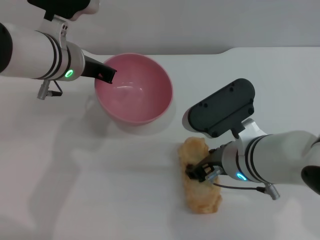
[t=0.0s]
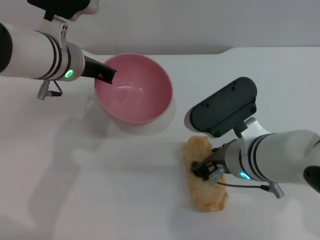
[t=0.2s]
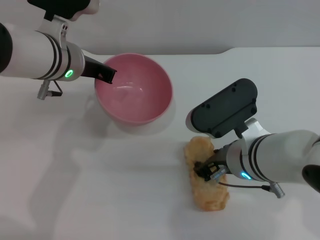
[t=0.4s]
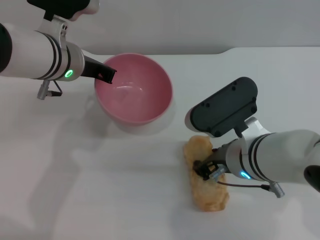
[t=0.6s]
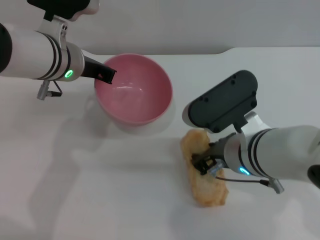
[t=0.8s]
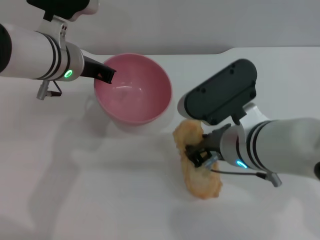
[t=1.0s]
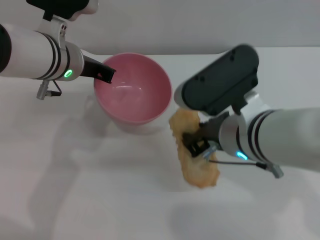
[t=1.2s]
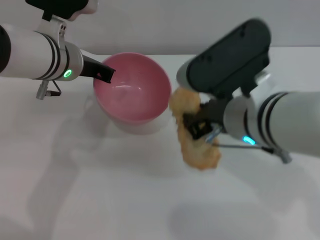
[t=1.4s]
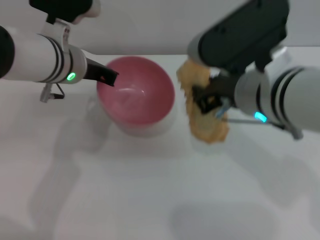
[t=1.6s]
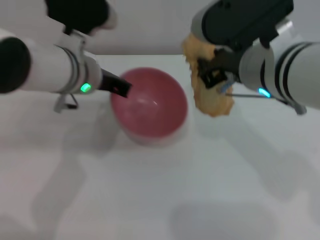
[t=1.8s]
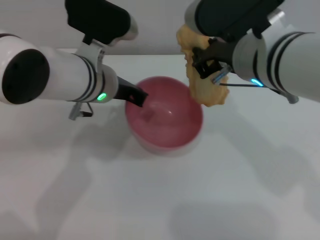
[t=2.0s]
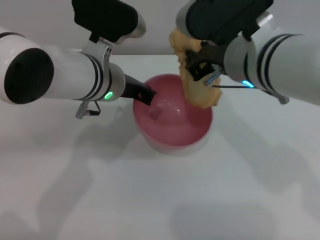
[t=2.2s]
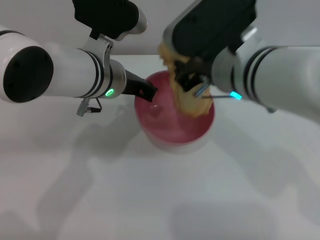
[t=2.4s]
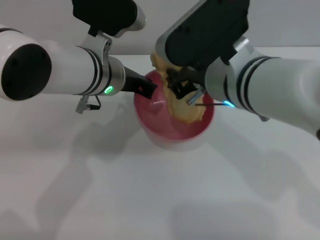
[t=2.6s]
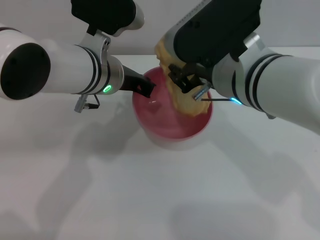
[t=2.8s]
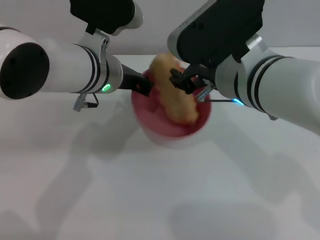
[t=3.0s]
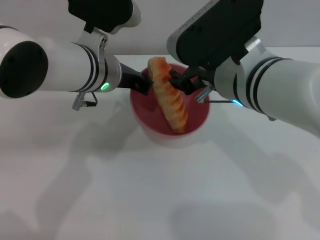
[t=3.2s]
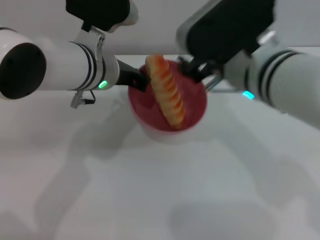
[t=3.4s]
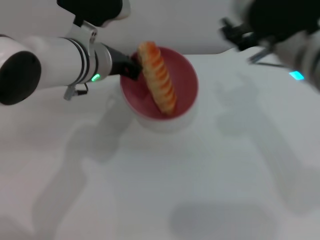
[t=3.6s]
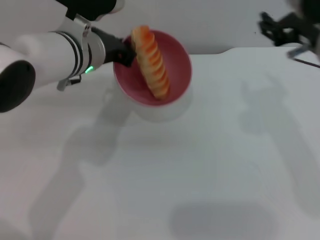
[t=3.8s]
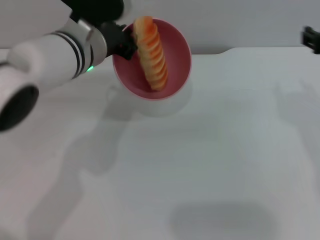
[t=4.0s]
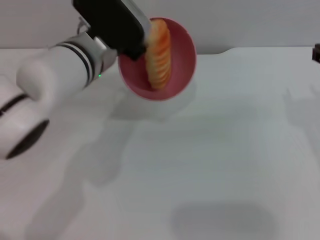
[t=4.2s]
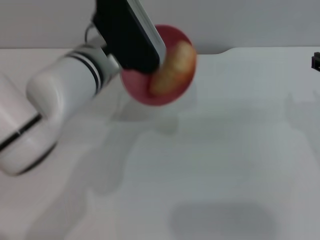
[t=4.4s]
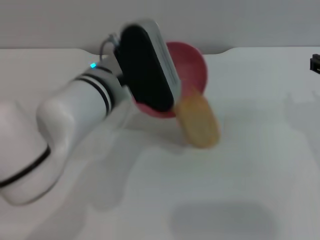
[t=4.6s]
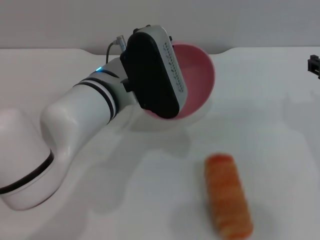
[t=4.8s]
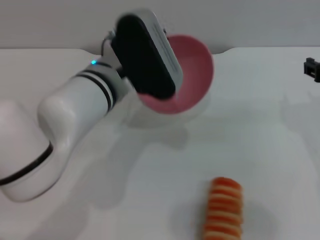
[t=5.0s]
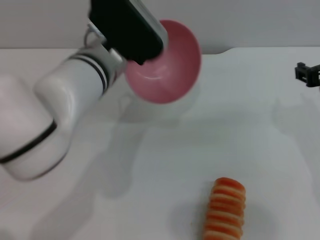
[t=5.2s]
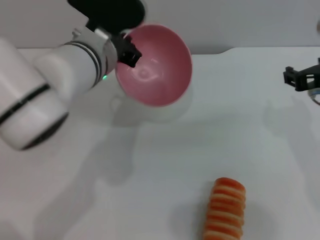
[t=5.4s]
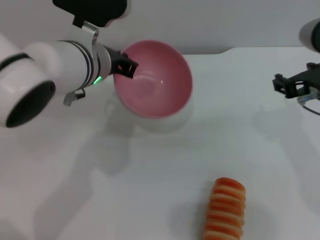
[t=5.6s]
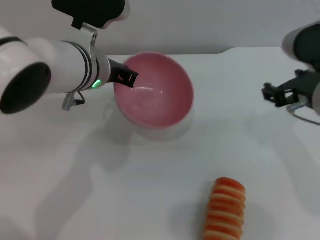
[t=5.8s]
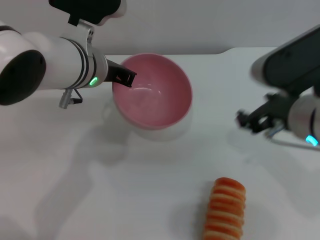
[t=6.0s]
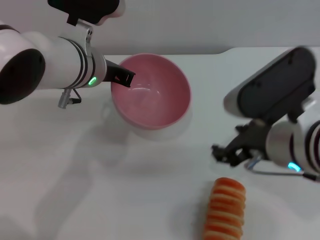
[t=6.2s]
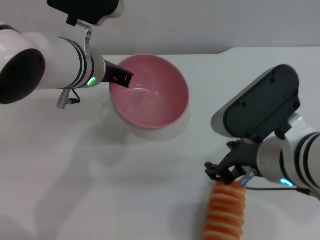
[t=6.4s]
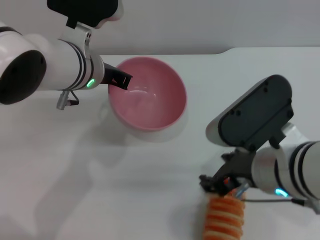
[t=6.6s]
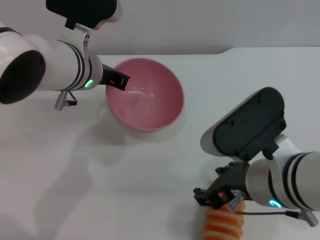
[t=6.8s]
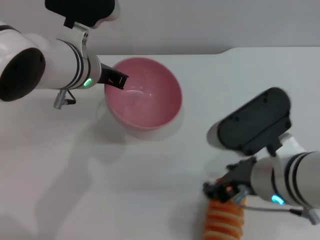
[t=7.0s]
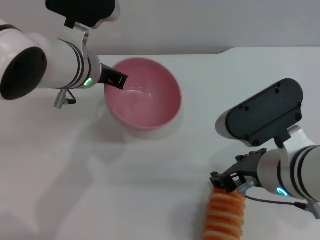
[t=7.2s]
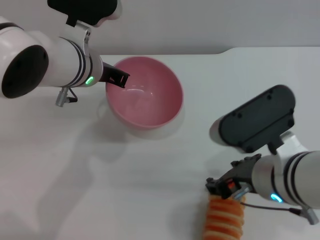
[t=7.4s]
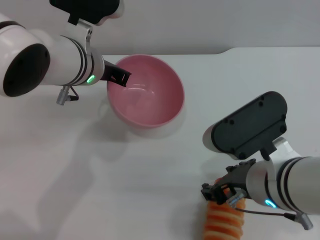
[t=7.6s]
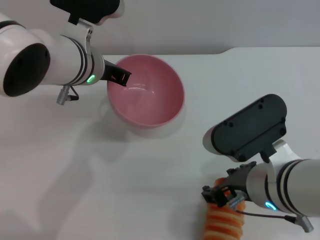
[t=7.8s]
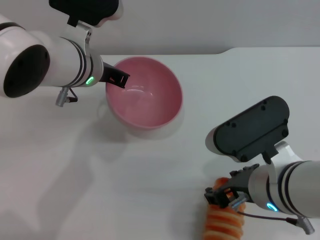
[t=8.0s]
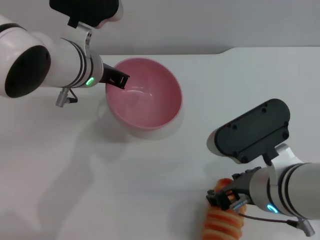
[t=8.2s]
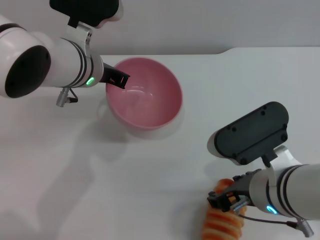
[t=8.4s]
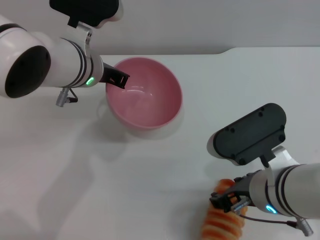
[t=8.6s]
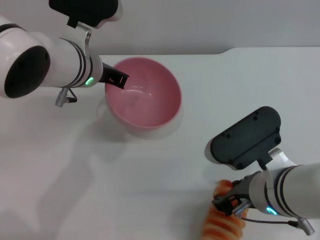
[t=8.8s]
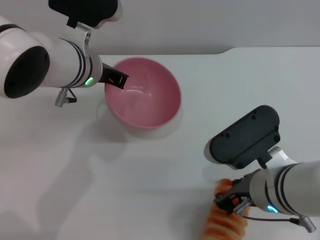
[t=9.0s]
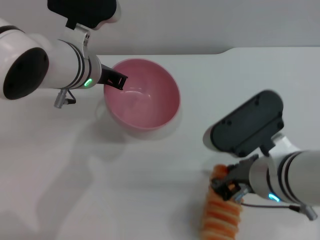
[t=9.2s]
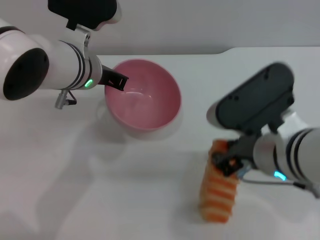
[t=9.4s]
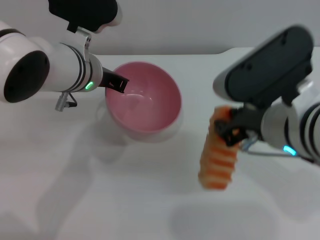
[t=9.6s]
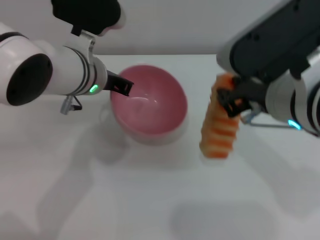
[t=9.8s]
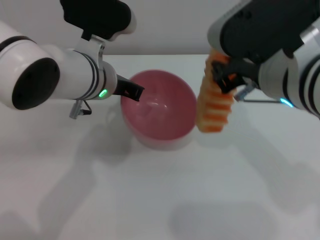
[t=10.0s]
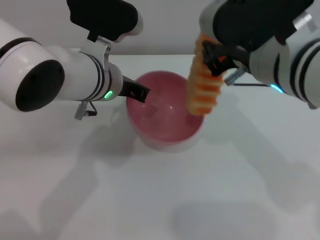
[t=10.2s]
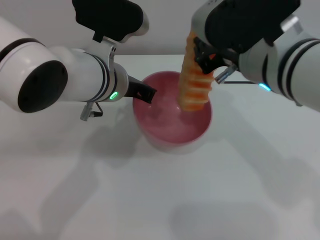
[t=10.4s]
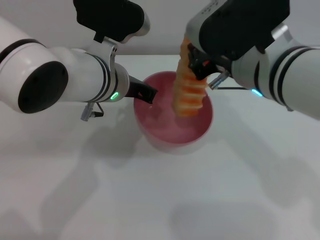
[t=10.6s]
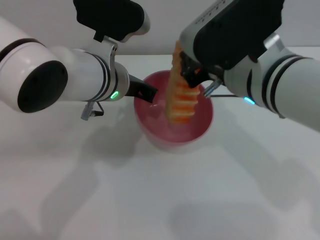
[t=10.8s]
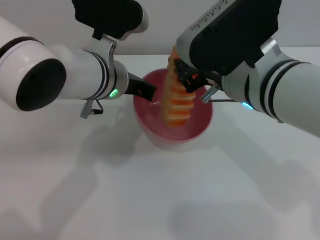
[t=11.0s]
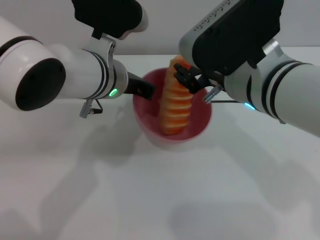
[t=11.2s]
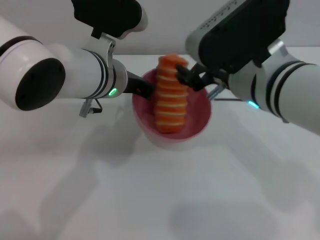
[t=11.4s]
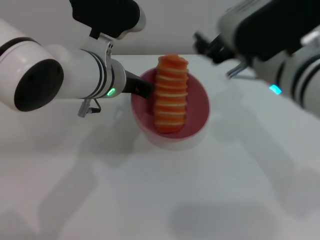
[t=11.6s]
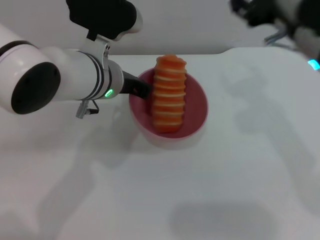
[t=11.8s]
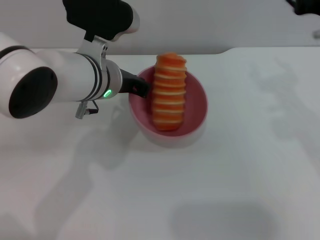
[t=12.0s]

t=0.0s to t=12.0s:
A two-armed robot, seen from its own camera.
Task of the whole recording: put the bread into the pink bowl and pour it out repeatedly.
Step, t=1.4s to t=3.8s: Place the bread into the bowl.
Step, t=4.0s to t=5.4s: Pour the bread out of the bowl.
Step, t=5.6s to t=9.8s: Pick up the bread with the right gripper.
Step, t=10.0s to t=11.8s: Place the bread into the bowl.
t=0.0s to t=1.6s: The right gripper goes about 10 cm upward, and closes.
t=1.6s to t=3.0s: The left gripper changes place by some 5 cm.
t=3.0s to t=4.4s: The right gripper goes some 15 cm to the right.
t=4.4s to t=6.0s: The right gripper is displaced to the left by some 10 cm.
t=6.0s to t=7.6s: The right gripper changes place by some 10 cm.
t=7.6s to t=9.0s: There are only small adjustments of the grippers.
t=9.0s to t=10.4s: The right gripper goes some 15 cm upward and forward, and closes up.
t=10.4s to t=12.0s: The right gripper moves to the right, about 10 cm, and opens up.

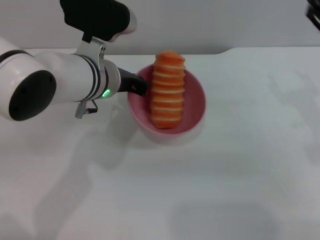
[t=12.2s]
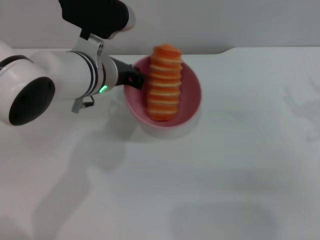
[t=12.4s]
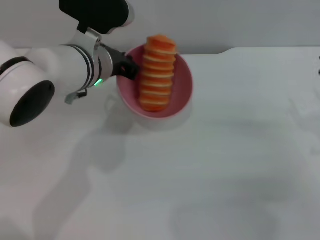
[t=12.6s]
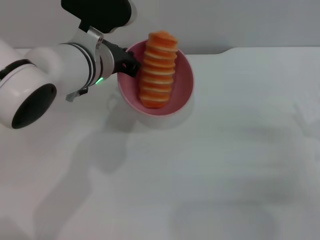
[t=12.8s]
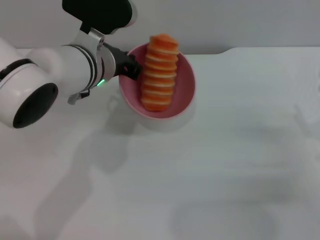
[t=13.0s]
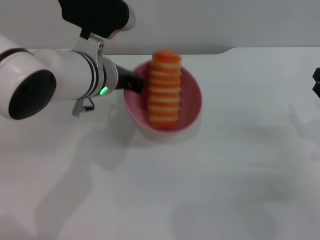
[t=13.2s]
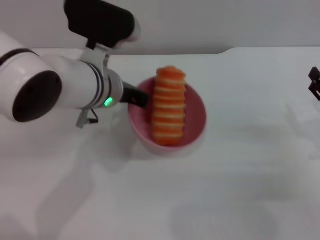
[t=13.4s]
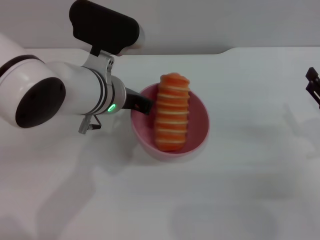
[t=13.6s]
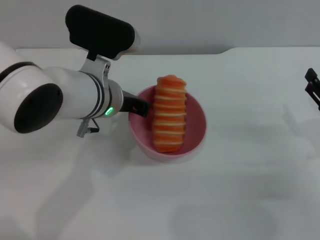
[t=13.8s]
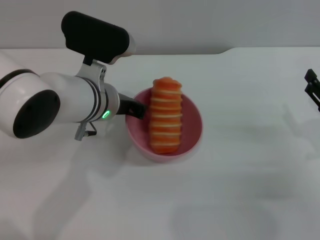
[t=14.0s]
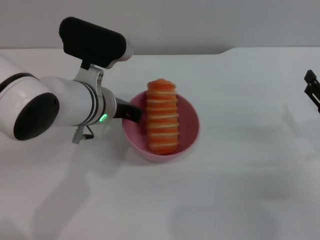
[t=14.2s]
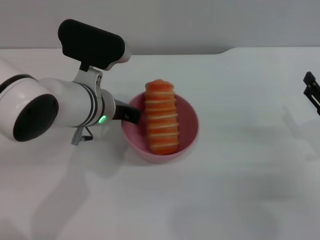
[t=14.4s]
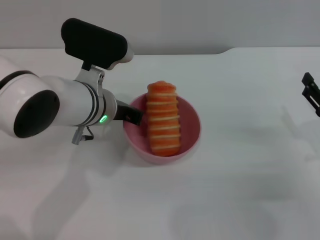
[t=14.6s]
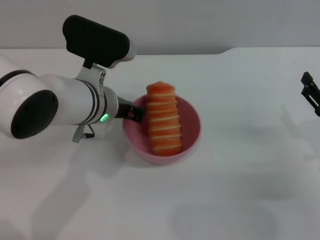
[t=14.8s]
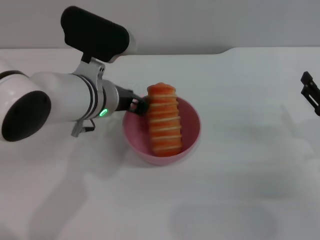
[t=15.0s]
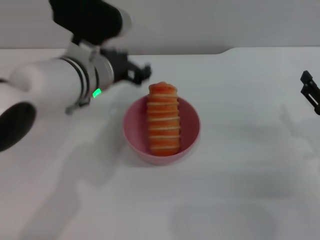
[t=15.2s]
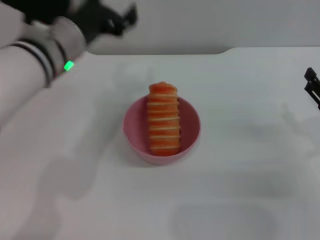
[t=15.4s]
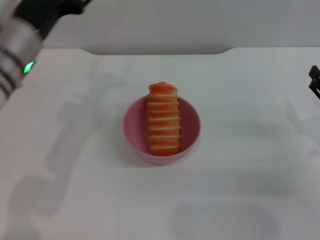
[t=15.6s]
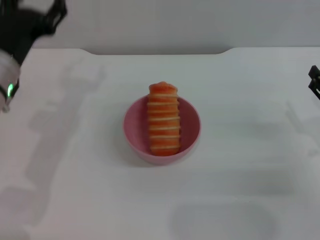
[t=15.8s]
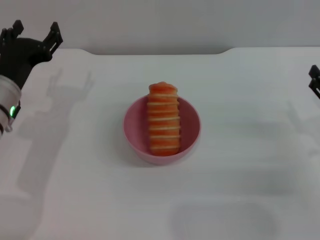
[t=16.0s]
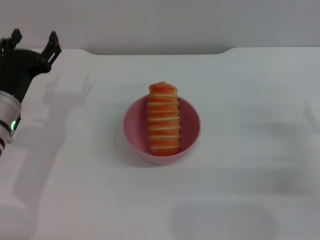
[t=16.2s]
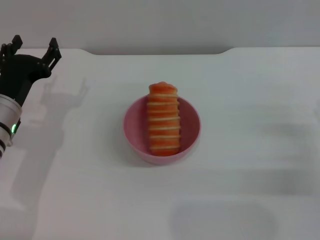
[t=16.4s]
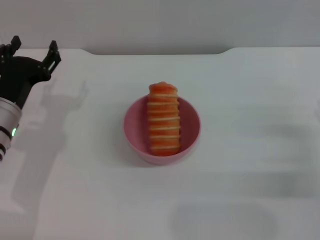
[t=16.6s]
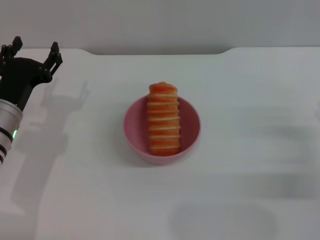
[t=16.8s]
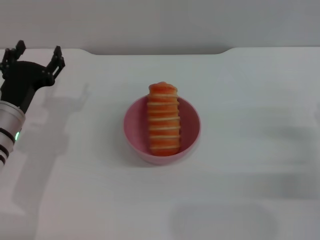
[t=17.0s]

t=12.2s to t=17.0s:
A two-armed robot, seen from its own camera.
Task of the whole recording: put the bread into the pink bowl and pour it out repeatedly.
Step, t=12.2s to t=15.2s: Place the bowl on the table.
t=12.2s to t=13.8s: The right gripper is displaced downward by roughly 10 cm.
t=13.8s to t=15.4s: The left gripper shifts by approximately 5 cm, and opens up.
t=15.4s to t=17.0s: The left gripper moves downward and to the left, approximately 15 cm.
